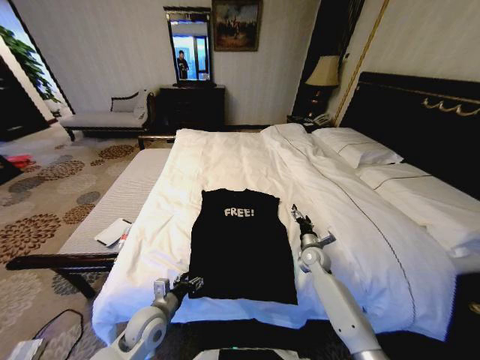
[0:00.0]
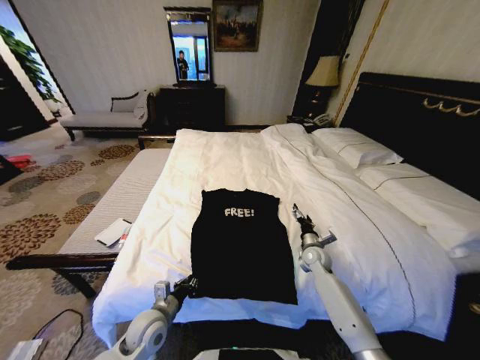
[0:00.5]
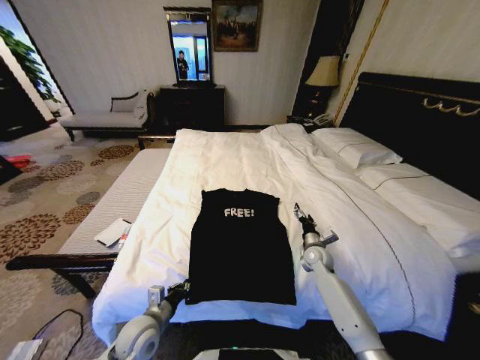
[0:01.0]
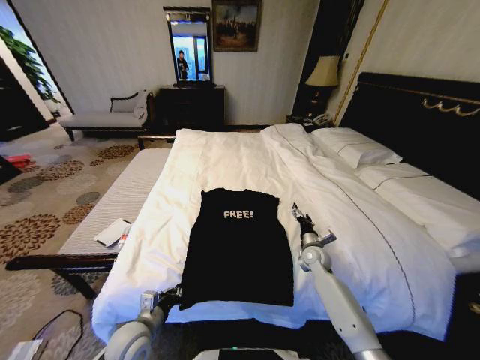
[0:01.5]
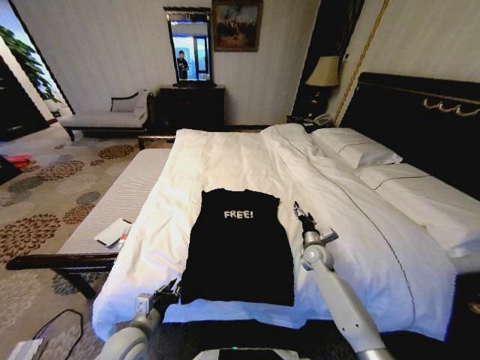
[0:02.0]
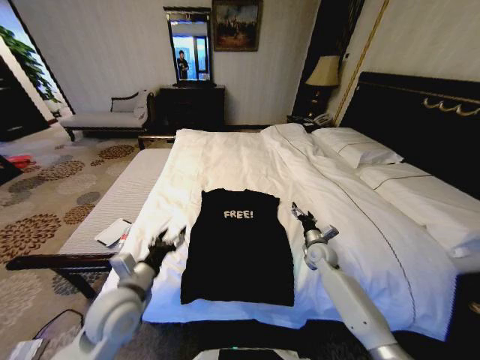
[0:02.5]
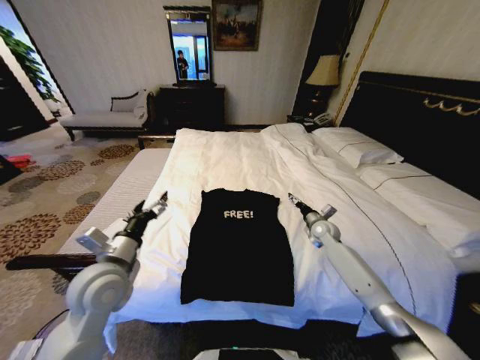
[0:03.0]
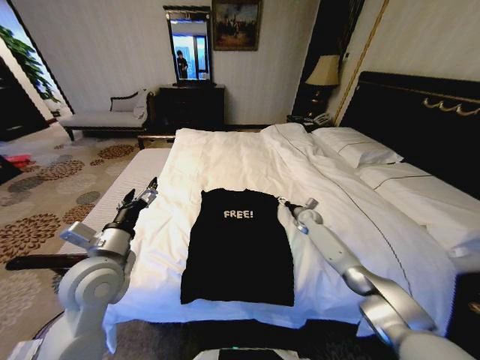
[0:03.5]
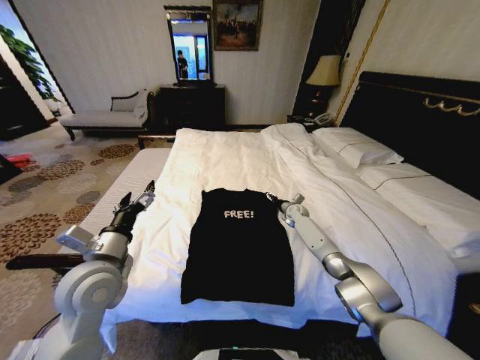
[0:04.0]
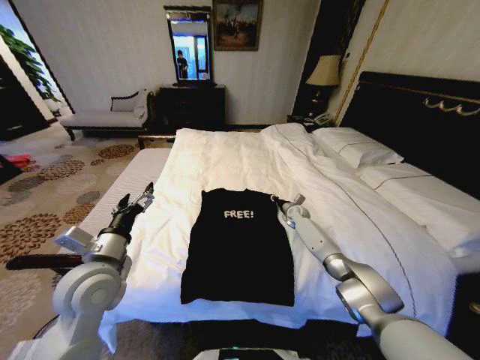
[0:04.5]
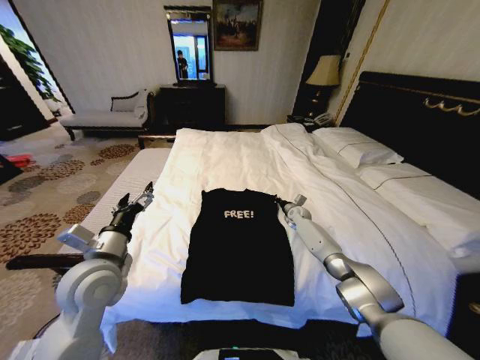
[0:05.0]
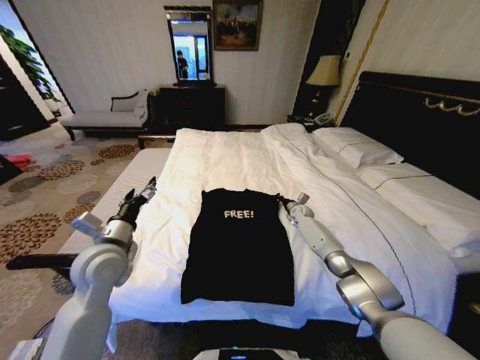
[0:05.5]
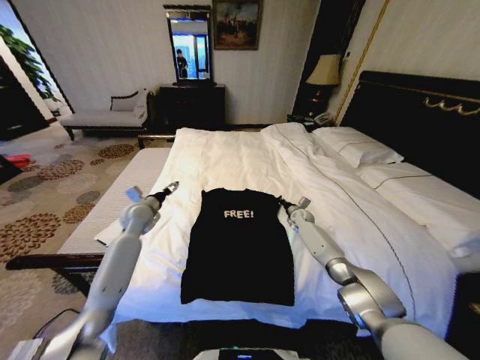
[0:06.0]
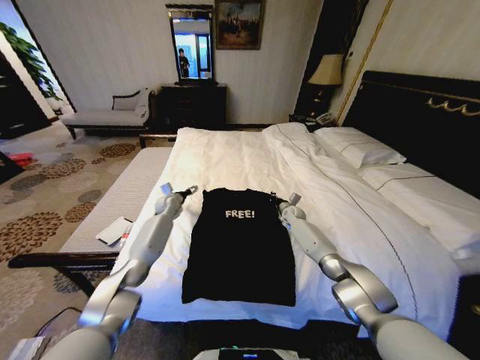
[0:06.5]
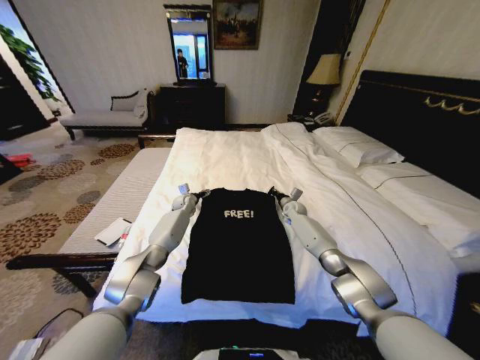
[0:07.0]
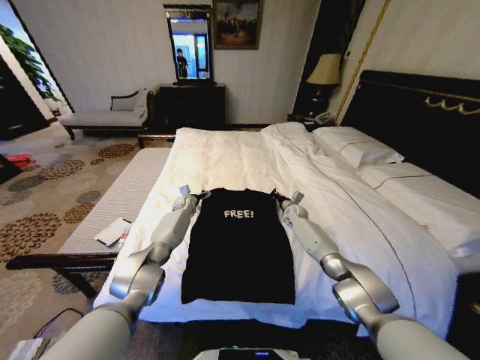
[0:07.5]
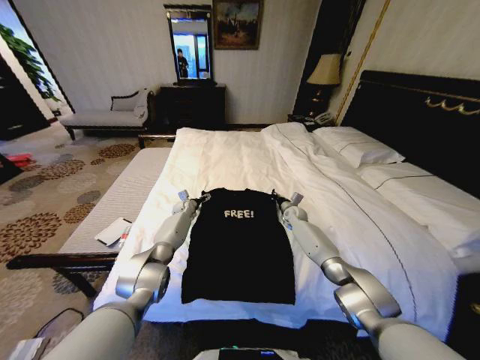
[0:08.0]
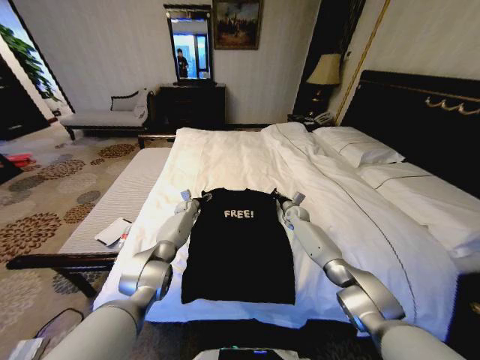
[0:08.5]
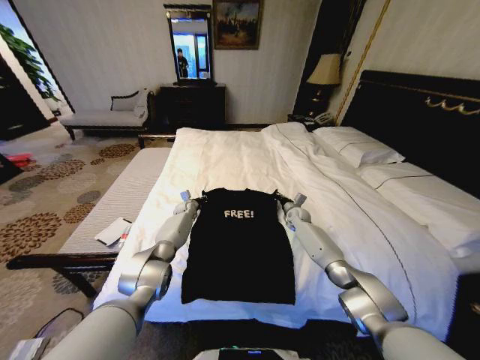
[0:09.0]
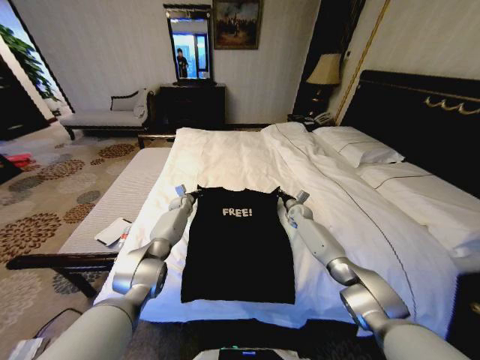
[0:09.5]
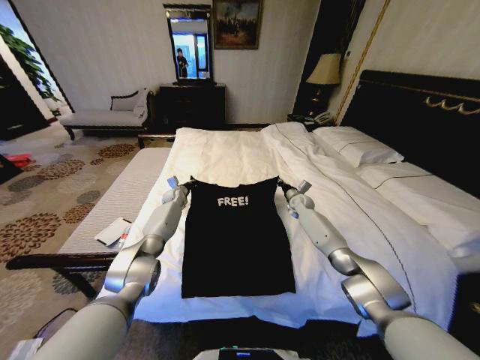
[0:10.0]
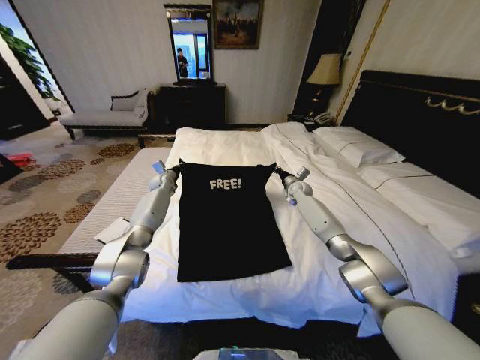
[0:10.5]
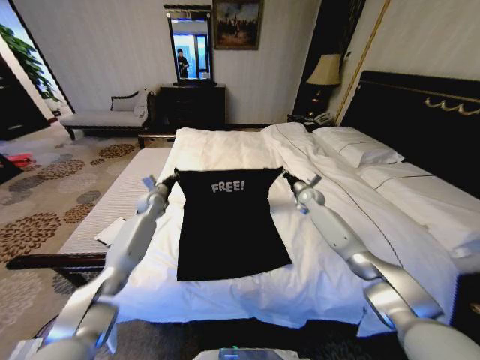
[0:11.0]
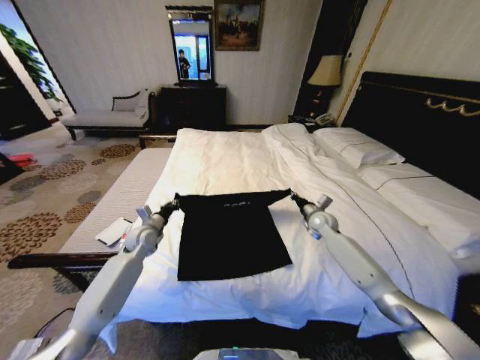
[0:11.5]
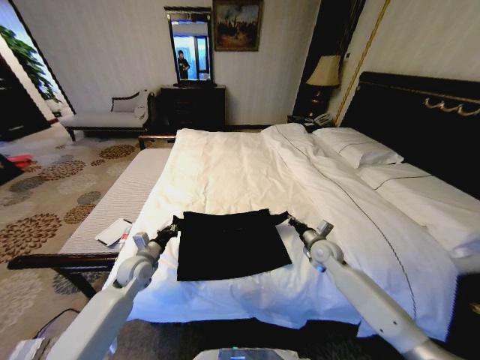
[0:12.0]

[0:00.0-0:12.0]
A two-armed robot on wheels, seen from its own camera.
Task of the whole recording: Fold the clothes on the bed.
0:00.0 to 0:02.0: The left gripper shifts by roughly 5 cm, and closes.
0:02.0 to 0:04.0: The left gripper travels upward and forward by roughly 20 cm, and opens its fingers; the right gripper heads forward, covering approximately 20 cm.
0:04.0 to 0:06.0: The right gripper closes. The left gripper goes approximately 25 cm forward.
0:06.0 to 0:08.0: The left gripper moves forward, downward and to the right, approximately 25 cm.
0:08.0 to 0:10.0: Both grippers move upward, some 5 cm. The left gripper closes.
0:10.0 to 0:12.0: The grippers both shift backward by some 25 cm.

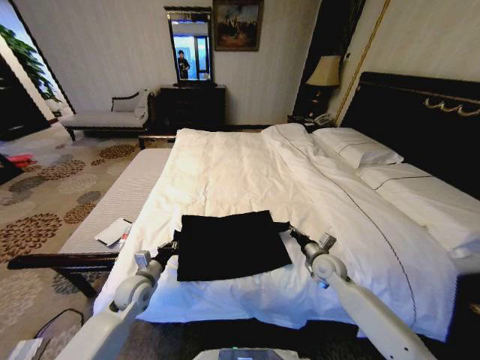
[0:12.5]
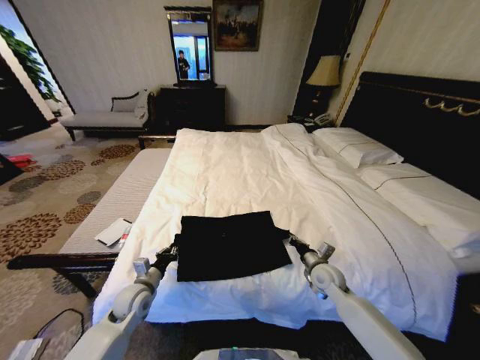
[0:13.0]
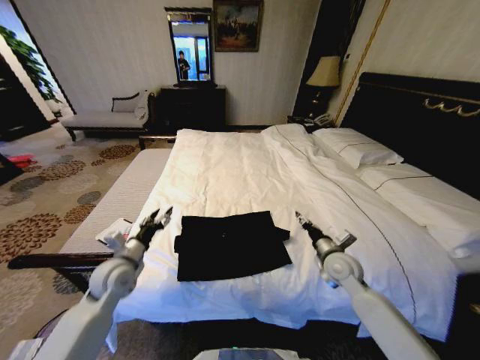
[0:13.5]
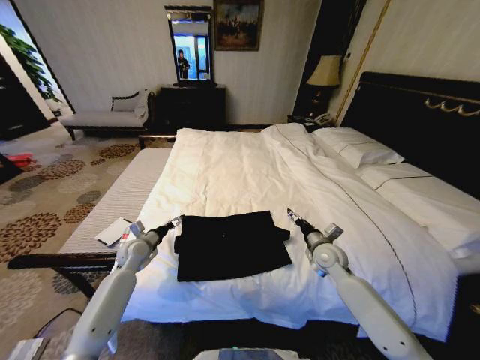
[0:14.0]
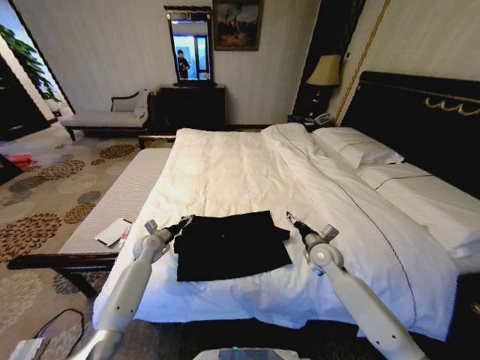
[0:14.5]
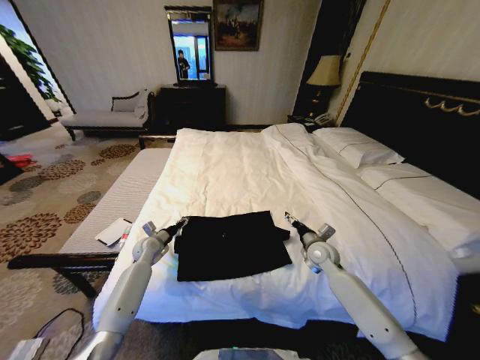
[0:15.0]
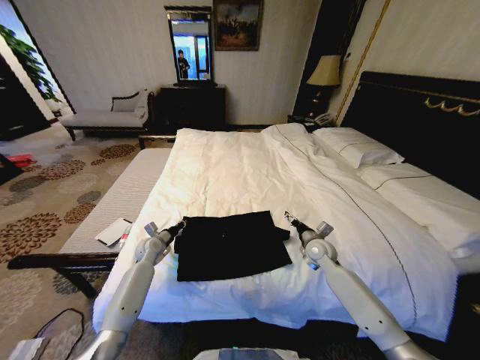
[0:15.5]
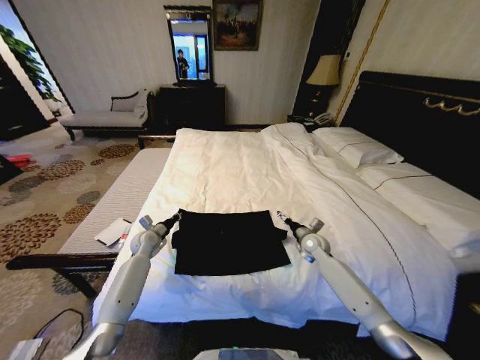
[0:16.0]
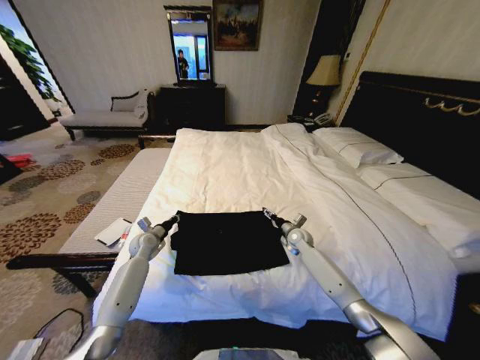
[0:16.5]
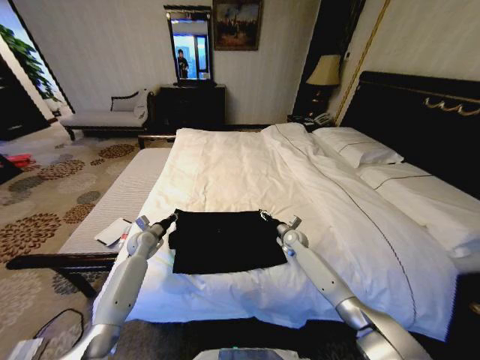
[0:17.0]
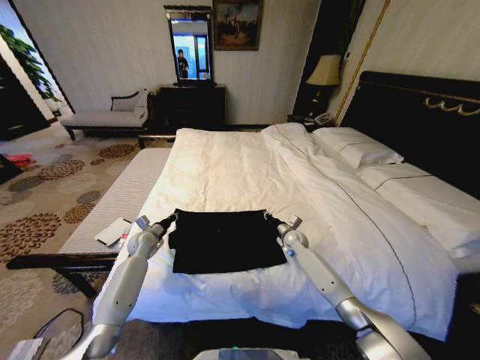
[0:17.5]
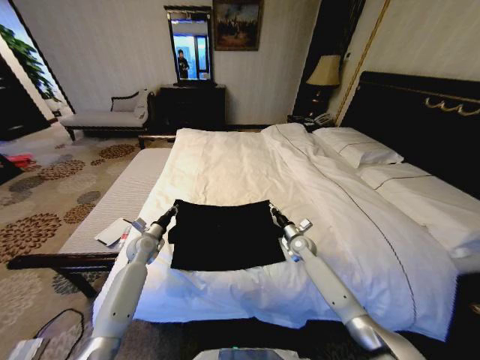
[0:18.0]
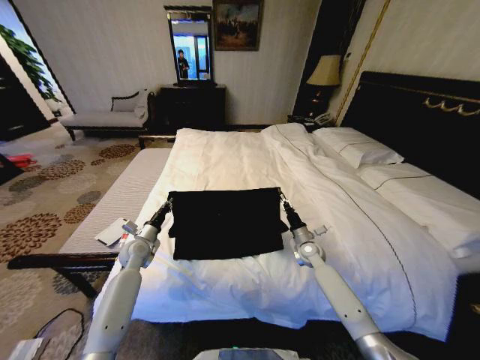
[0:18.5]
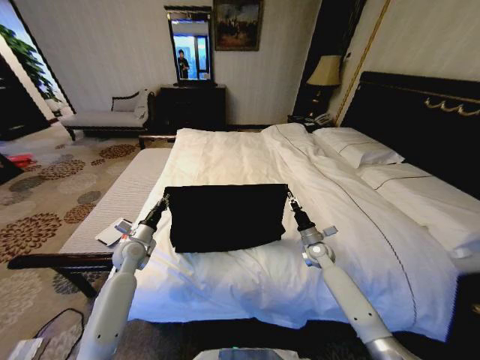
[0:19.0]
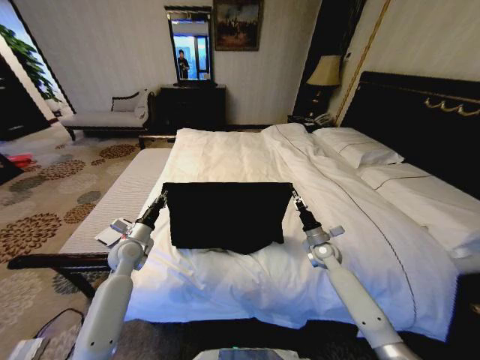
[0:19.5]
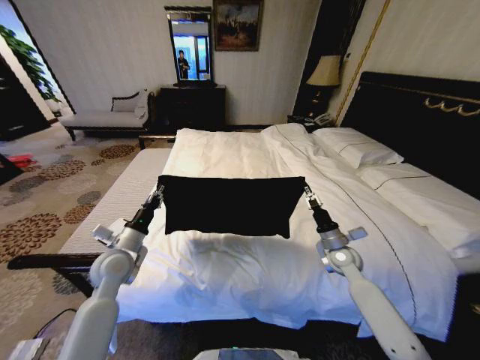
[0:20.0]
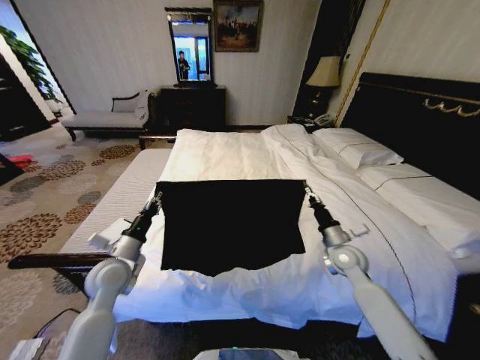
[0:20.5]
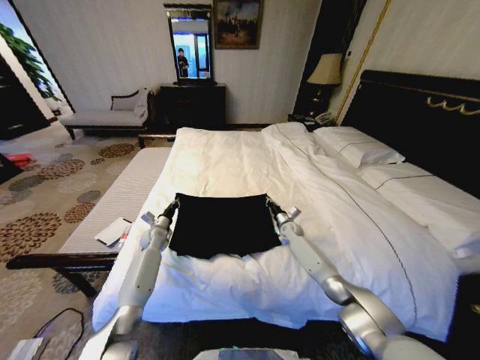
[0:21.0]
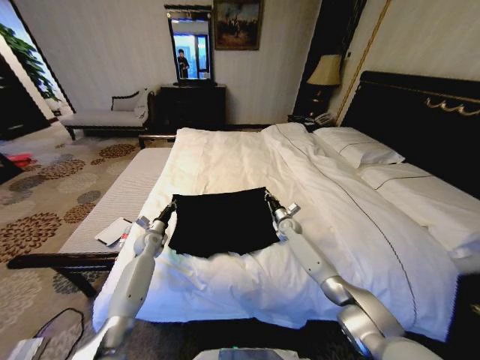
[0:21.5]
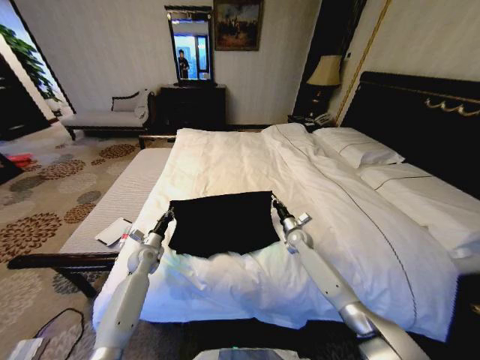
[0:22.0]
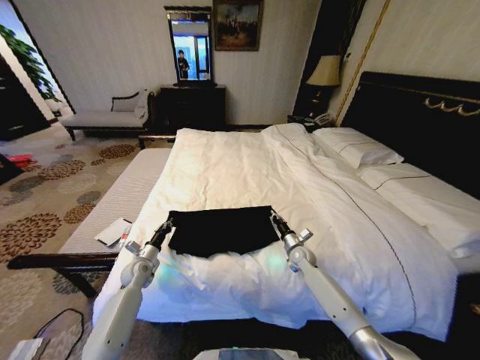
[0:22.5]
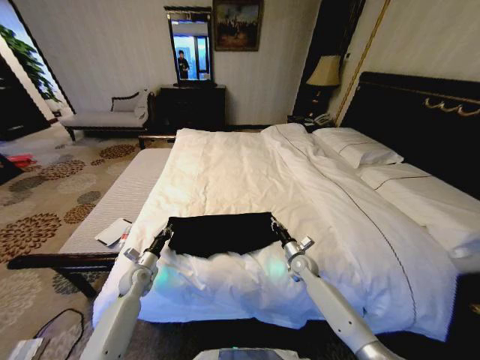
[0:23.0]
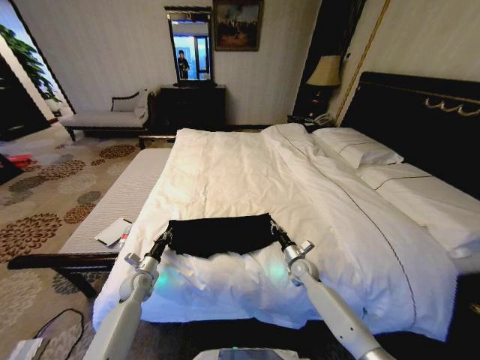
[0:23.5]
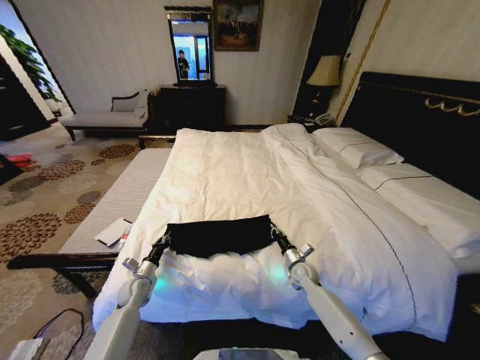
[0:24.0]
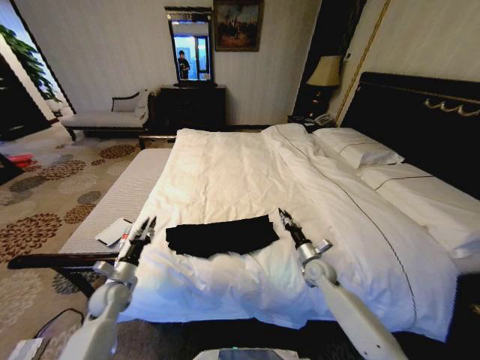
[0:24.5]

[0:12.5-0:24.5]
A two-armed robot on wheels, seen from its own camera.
Task of the whole recording: Fold the clothes on the bed.
0:12.5 to 0:14.5: The right gripper opens its fingers. The left gripper shifts some 15 cm forward, and opens up.
0:14.5 to 0:16.5: The right gripper goes roughly 10 cm forward and downward, while the left gripper closes.
0:16.5 to 0:18.5: The right gripper goes approximately 5 cm backward, and closes; the left gripper shifts by about 5 cm.
0:18.5 to 0:20.5: The left gripper goes approximately 15 cm backward and upward, while the right gripper shifts approximately 15 cm upward and backward.
0:20.5 to 0:22.5: The left gripper goes about 20 cm downward and forward; the right gripper moves downward, forward and to the left, roughly 20 cm.
0:22.5 to 0:24.5: Both grippers move backward, approximately 10 cm. The right gripper opens, while the left gripper opens.

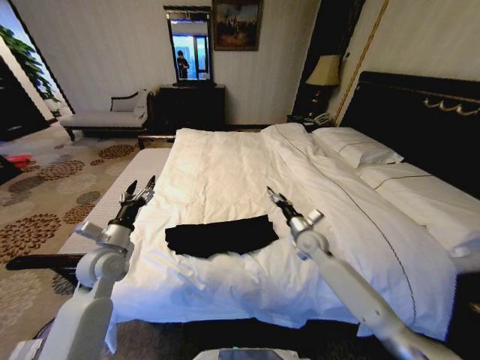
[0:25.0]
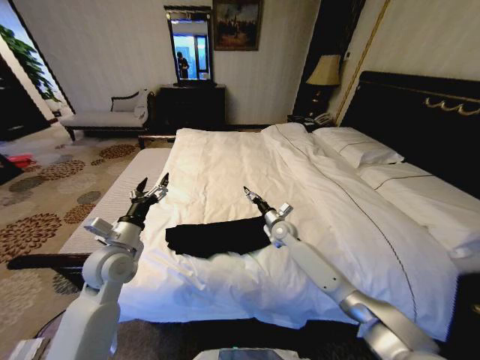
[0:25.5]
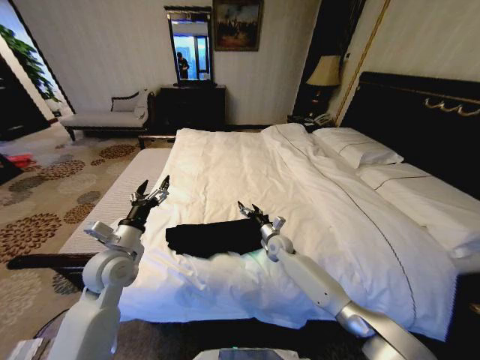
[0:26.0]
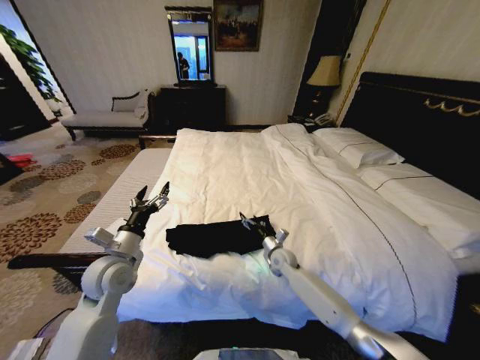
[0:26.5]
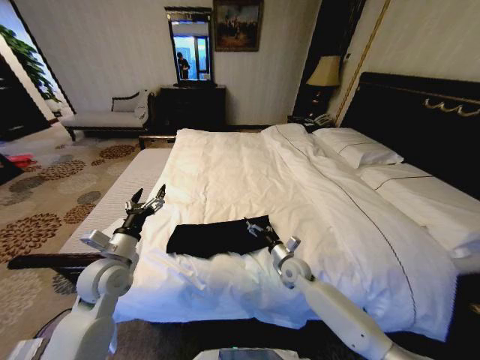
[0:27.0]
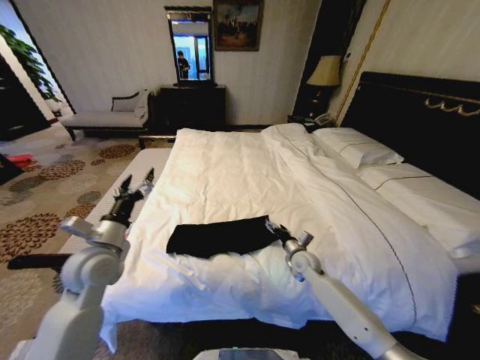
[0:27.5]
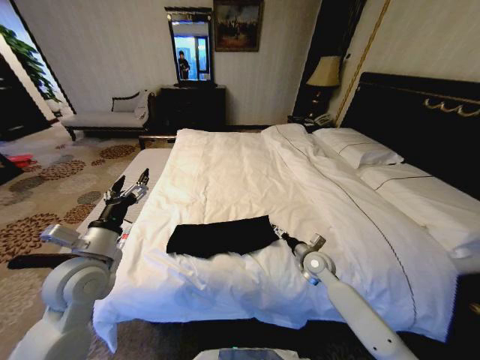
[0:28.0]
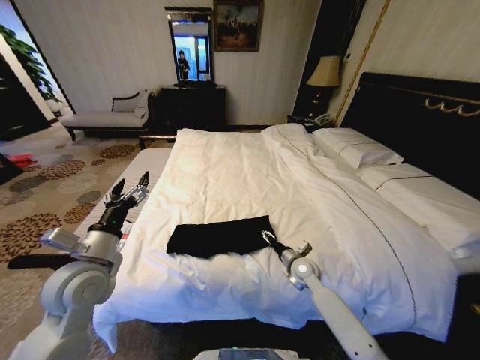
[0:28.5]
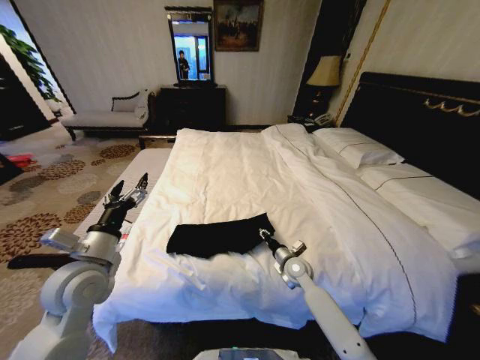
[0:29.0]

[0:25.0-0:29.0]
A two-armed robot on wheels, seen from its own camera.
Task of the whole recording: Fold the clothes on the bed.
0:25.0 to 0:27.0: The right gripper is displaced downward and backward by roughly 10 cm.
0:27.0 to 0:29.0: The left gripper is displaced upward by approximately 5 cm, while the right gripper closes.
